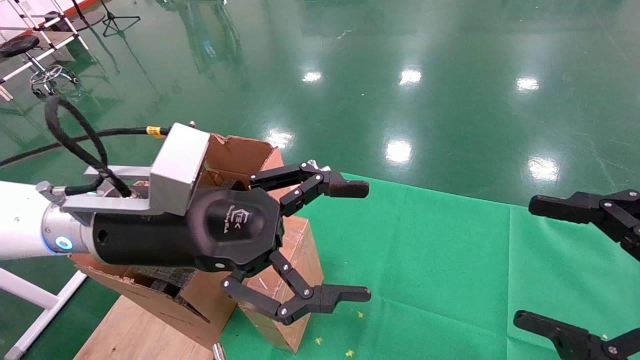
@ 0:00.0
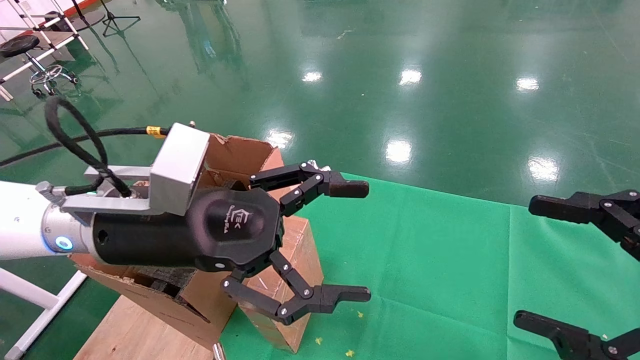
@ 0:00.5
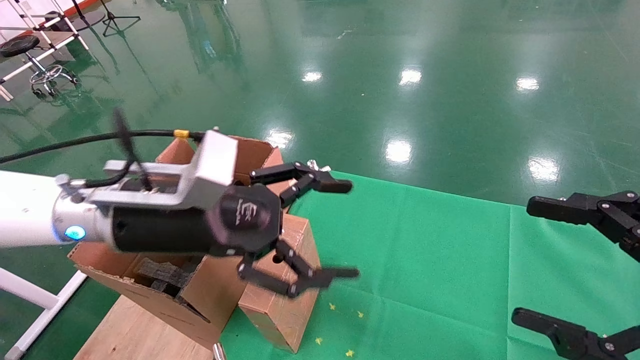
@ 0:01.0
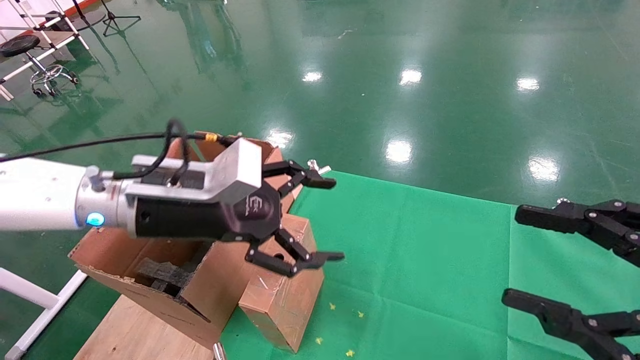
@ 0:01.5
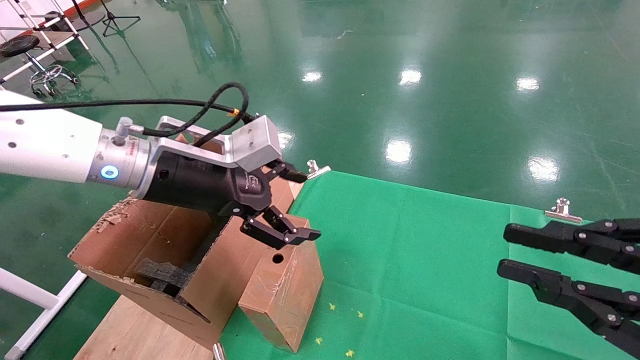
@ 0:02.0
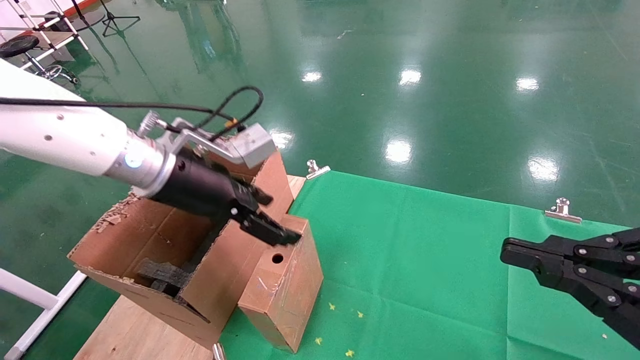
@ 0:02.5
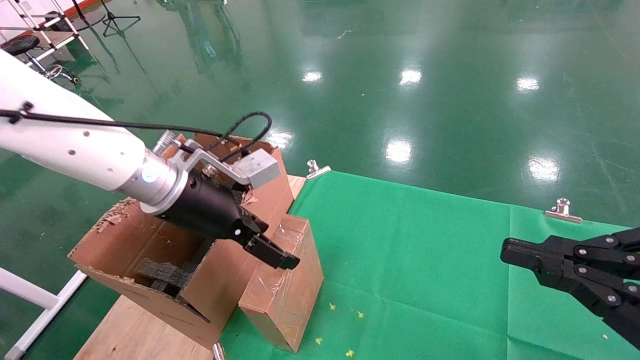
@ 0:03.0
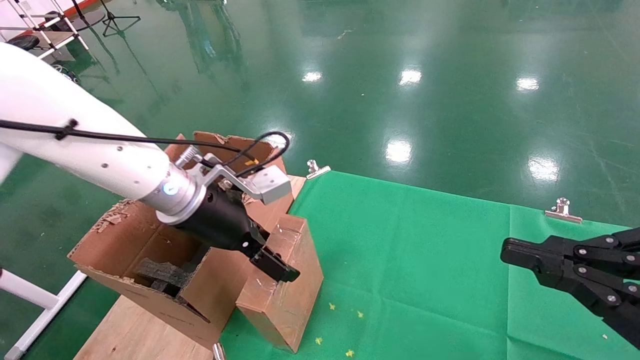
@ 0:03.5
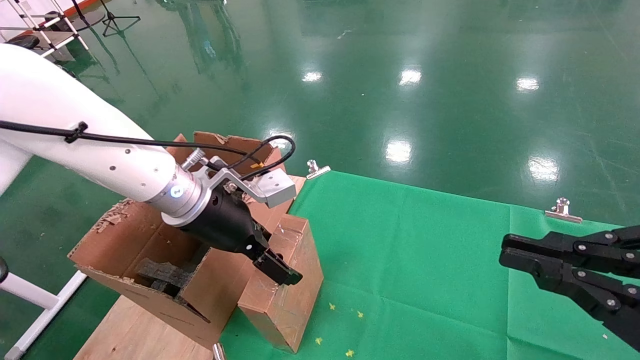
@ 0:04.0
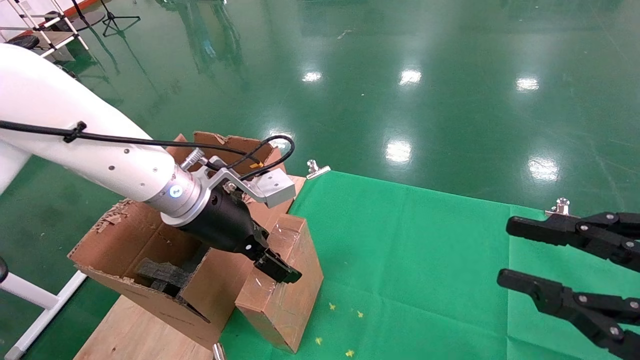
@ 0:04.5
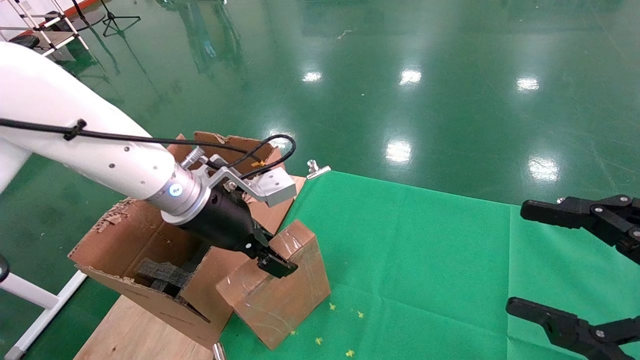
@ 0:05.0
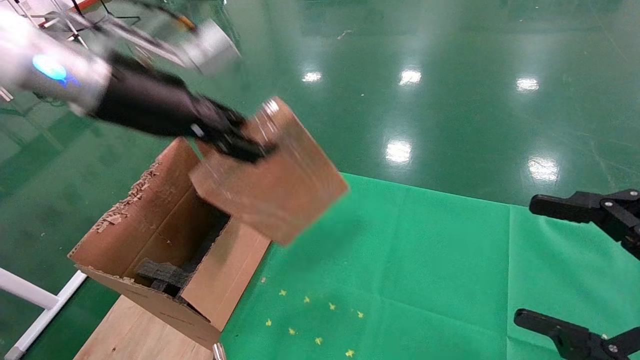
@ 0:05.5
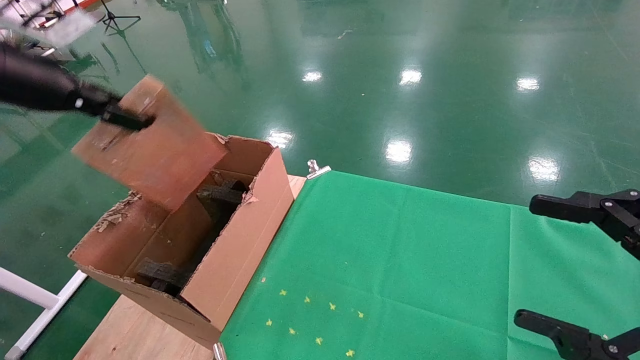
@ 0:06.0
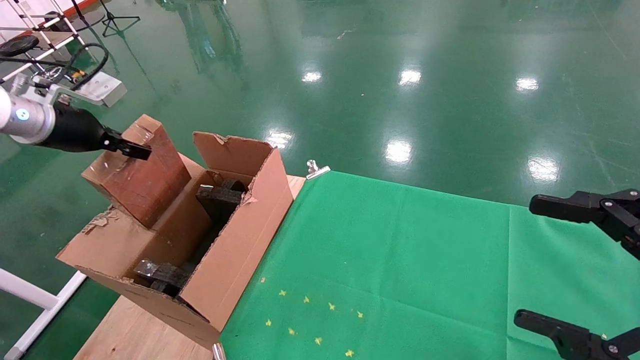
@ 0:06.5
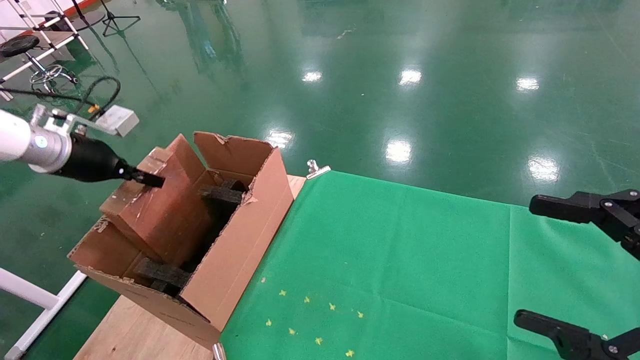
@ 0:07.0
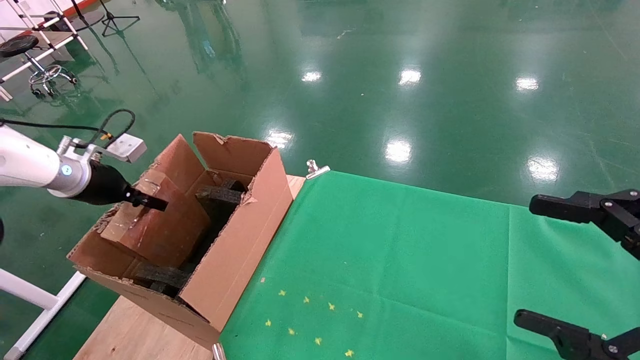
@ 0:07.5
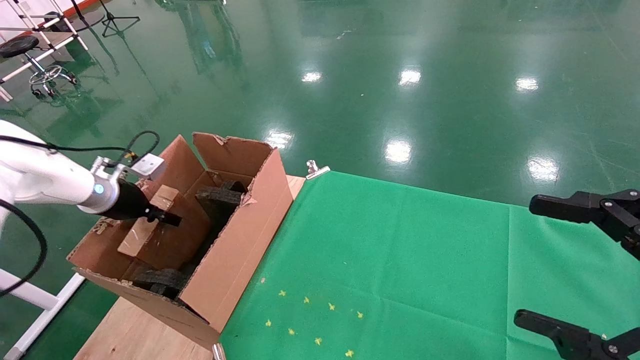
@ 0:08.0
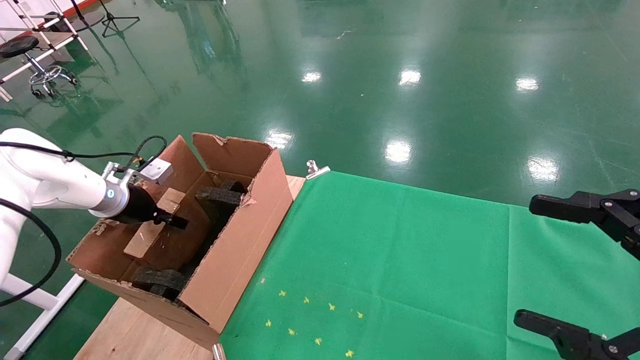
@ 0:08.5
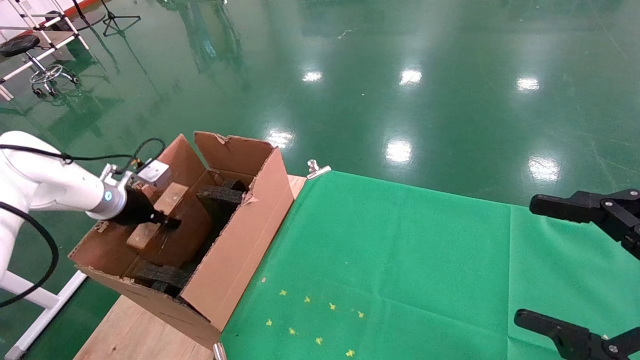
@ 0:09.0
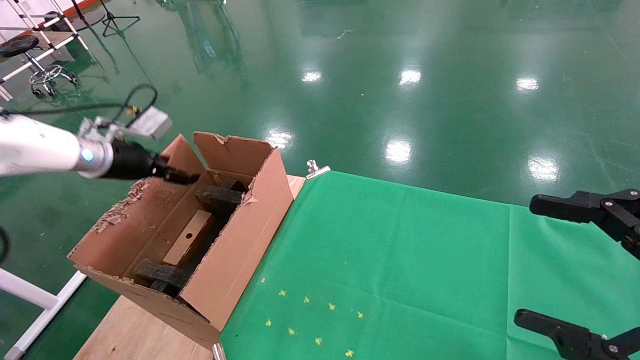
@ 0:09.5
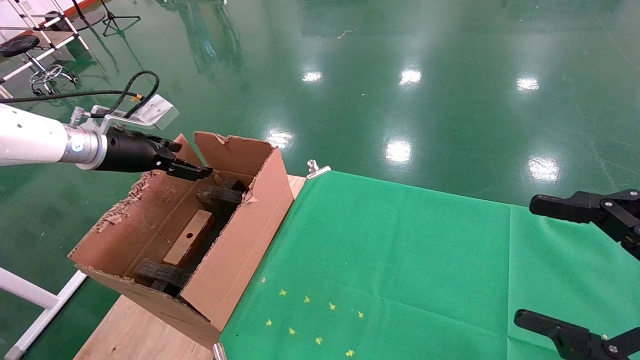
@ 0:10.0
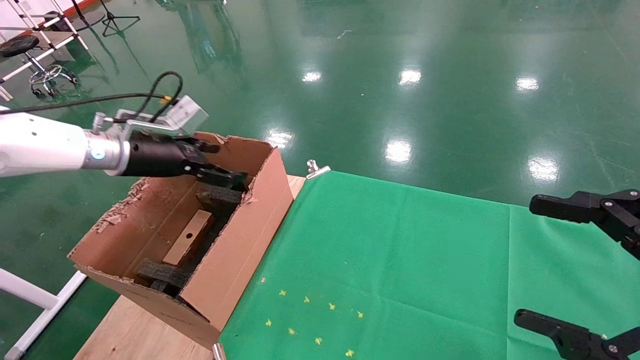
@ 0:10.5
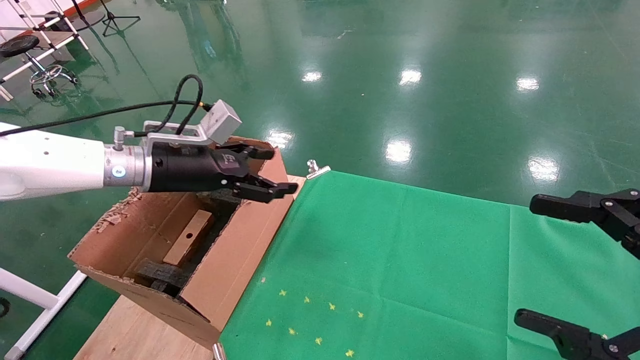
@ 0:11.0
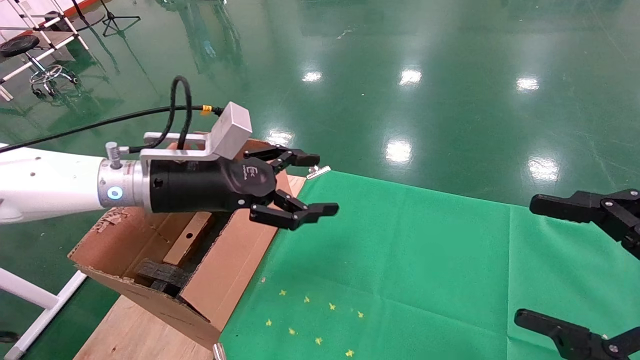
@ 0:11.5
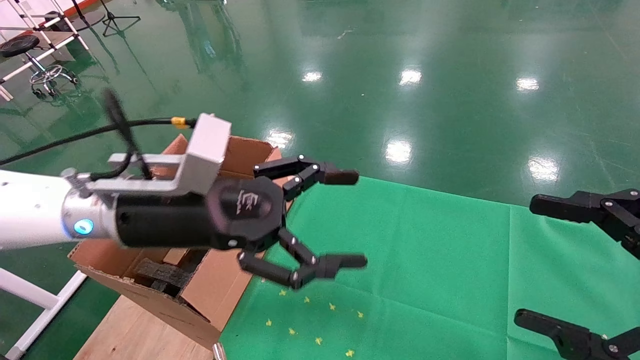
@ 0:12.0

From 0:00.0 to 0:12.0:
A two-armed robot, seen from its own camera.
Task of the whole recording: using a robotic arm to pick up a cardboard box and palace it the carton.
Step, from 0:01.0 to 0:05.0: Pick up the mouse and the power cord paper box.
Step, from 0:05.5 to 0:09.0: Place the mouse and the power cord paper box into the container.
From 0:00.0 to 0:02.0: The left gripper is displaced forward by roughly 5 cm, while the right gripper closes its fingers.
From 0:02.0 to 0:04.0: The left gripper moves approximately 5 cm.
From 0:04.0 to 0:06.0: The left gripper travels to the left and upward by about 30 cm, and closes up, while the right gripper opens its fingers.
From 0:06.0 to 0:08.0: The left gripper shifts about 25 cm downward and forward.
From 0:08.0 to 0:10.0: The left gripper is displaced upward by roughly 10 cm, and opens up.
From 0:10.0 to 0:12.0: The left gripper travels to the right and backward by about 25 cm.

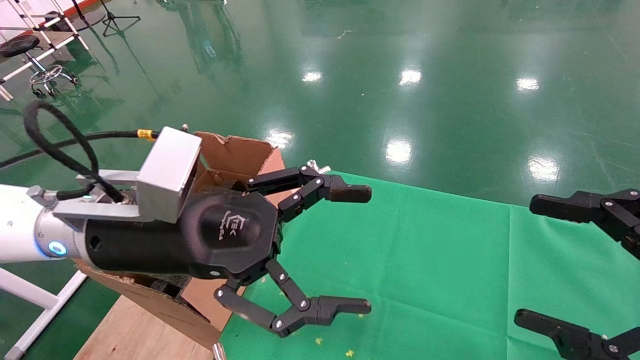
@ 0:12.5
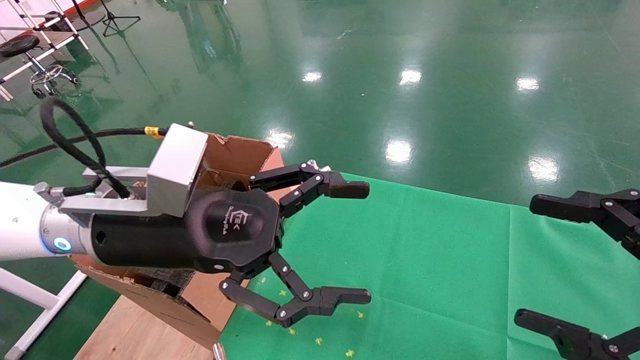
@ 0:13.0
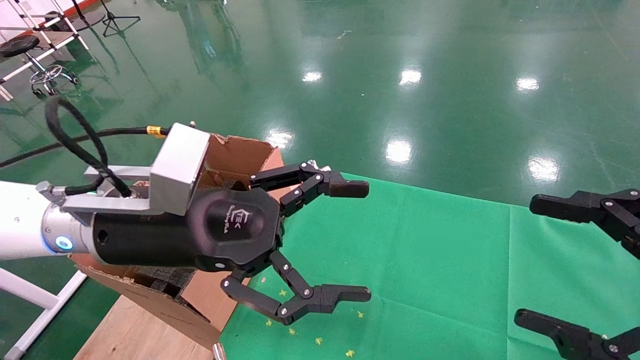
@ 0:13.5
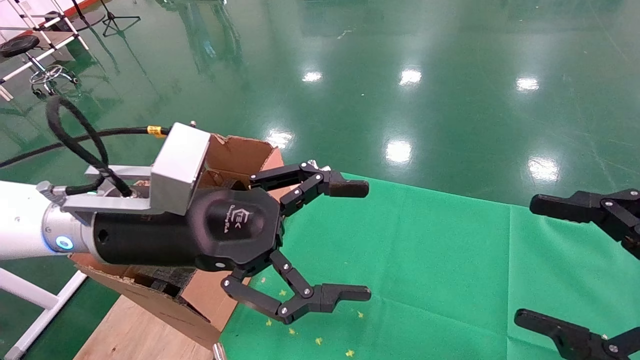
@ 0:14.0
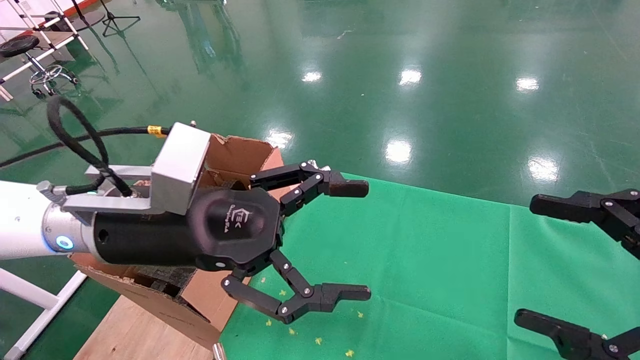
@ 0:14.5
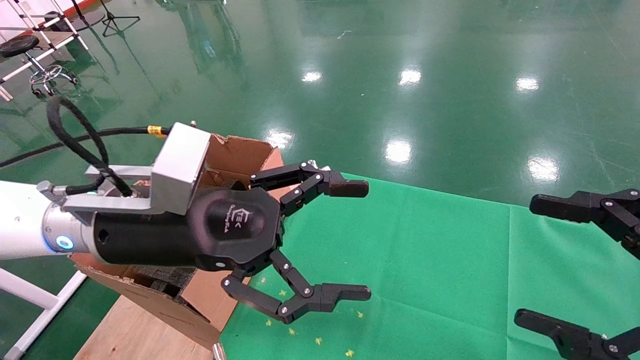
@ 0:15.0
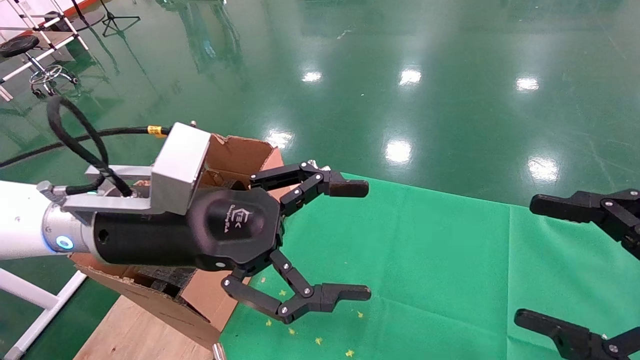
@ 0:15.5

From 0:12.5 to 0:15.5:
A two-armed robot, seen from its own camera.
Task of the whole recording: using a robotic arm to pick up a cardboard box and palace it the carton.
From 0:12.5 to 0:15.5: Neither gripper changes place.
